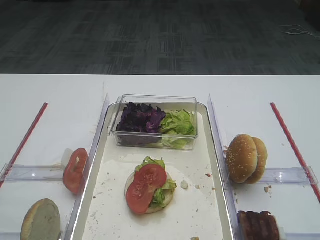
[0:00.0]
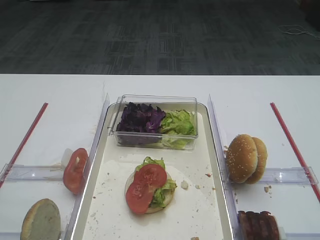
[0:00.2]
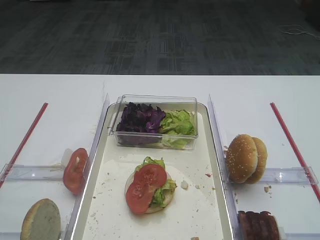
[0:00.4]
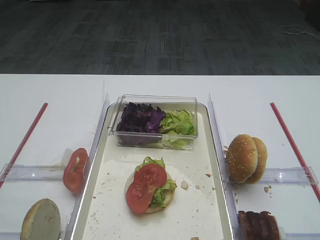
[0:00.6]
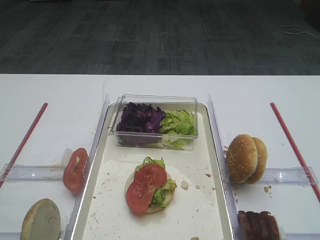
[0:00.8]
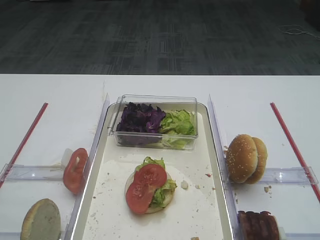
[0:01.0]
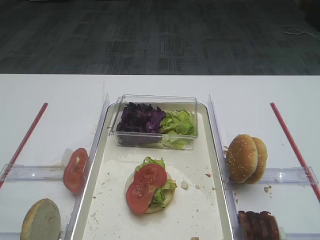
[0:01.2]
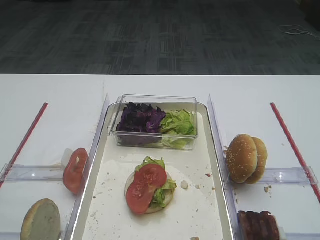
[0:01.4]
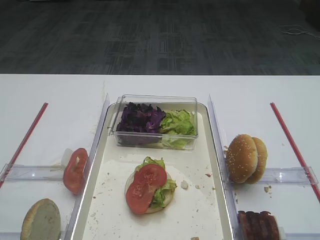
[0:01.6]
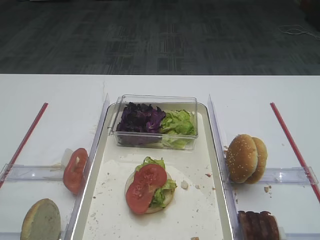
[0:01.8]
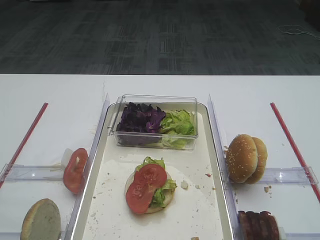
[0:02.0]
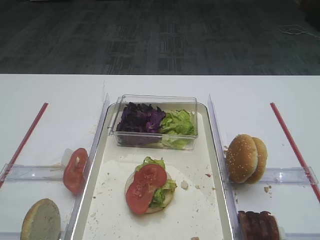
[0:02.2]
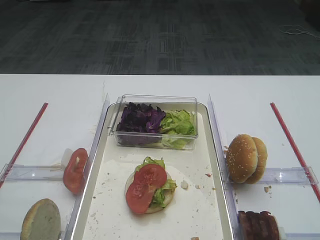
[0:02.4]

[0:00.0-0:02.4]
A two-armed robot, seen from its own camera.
0:00.0 to 0:02.4: Neither gripper changes place.

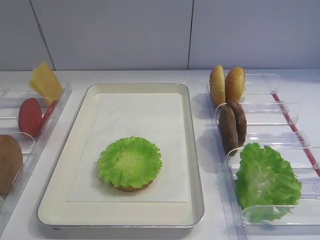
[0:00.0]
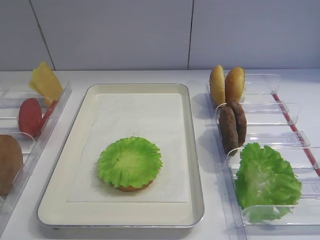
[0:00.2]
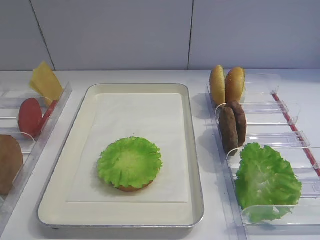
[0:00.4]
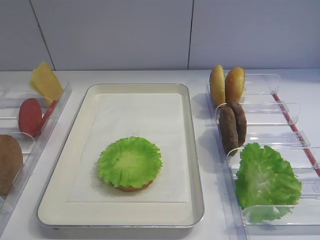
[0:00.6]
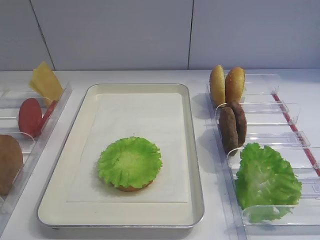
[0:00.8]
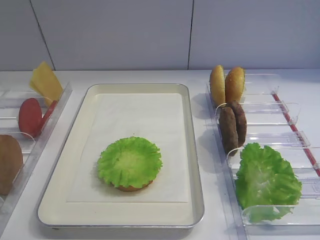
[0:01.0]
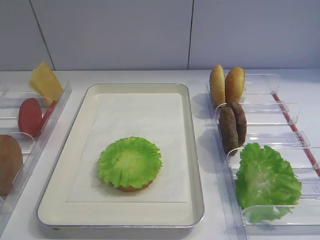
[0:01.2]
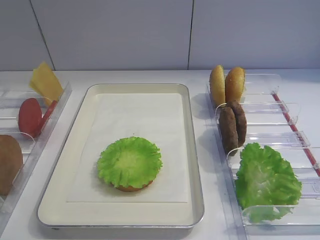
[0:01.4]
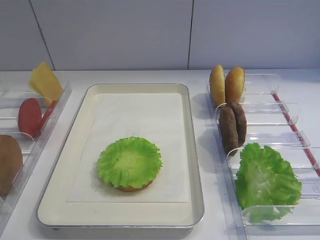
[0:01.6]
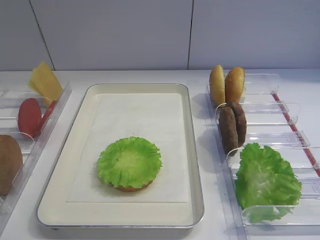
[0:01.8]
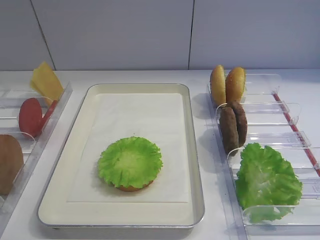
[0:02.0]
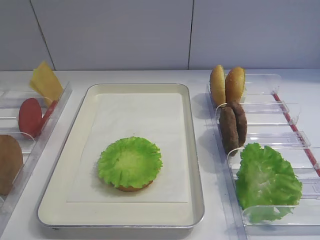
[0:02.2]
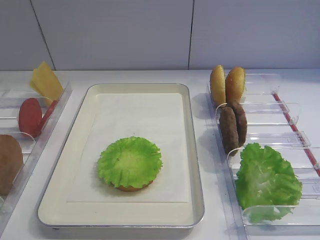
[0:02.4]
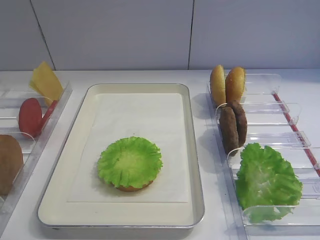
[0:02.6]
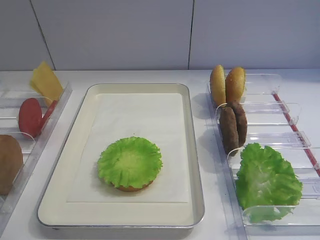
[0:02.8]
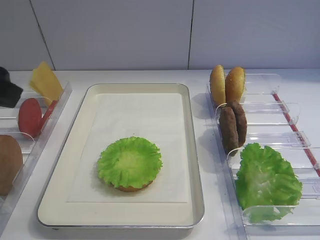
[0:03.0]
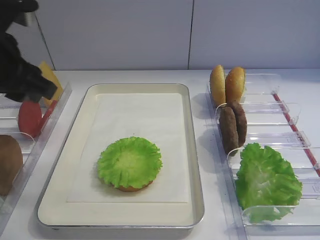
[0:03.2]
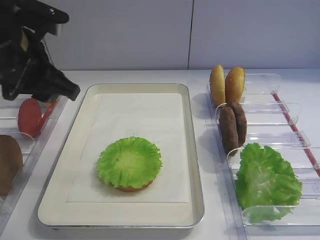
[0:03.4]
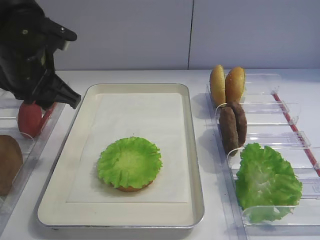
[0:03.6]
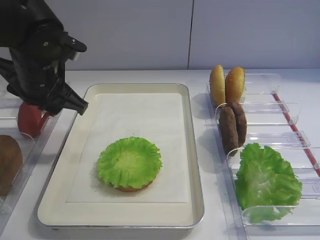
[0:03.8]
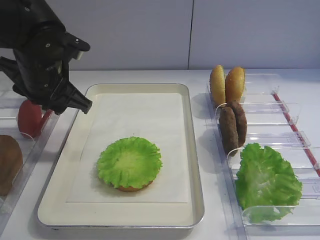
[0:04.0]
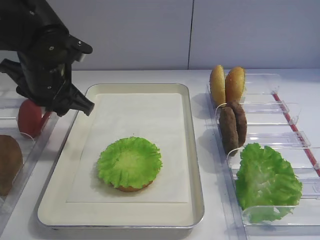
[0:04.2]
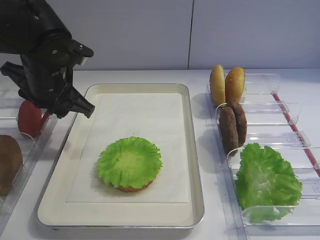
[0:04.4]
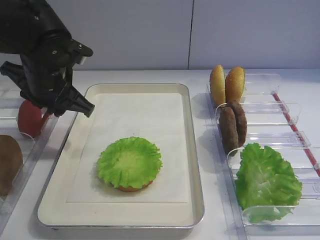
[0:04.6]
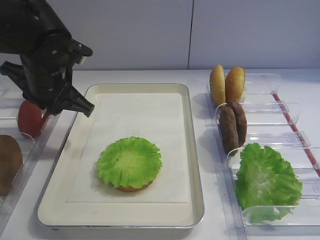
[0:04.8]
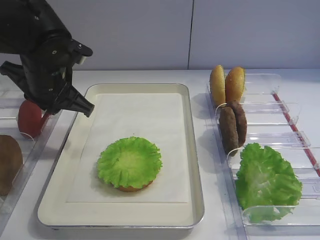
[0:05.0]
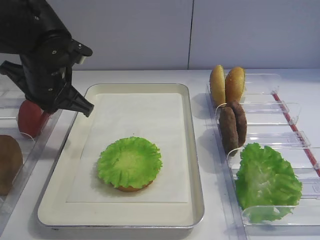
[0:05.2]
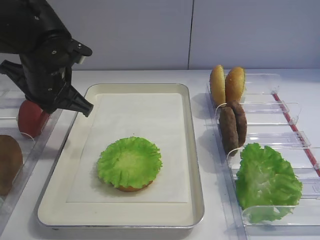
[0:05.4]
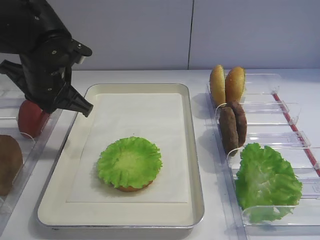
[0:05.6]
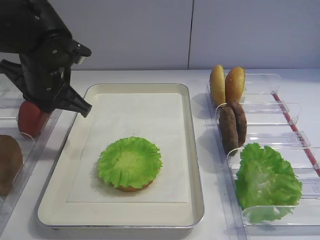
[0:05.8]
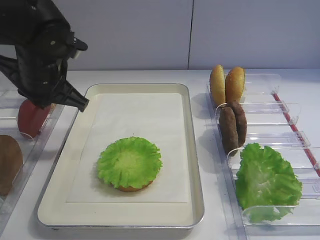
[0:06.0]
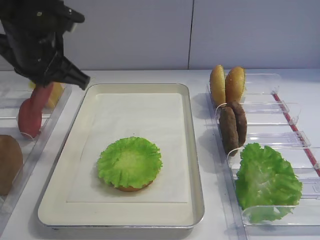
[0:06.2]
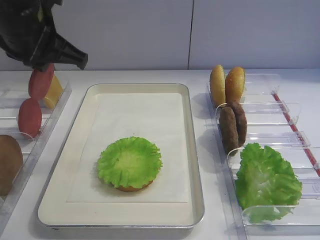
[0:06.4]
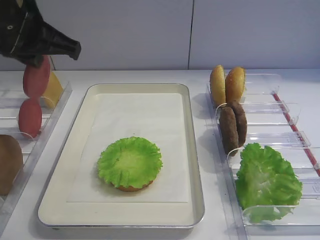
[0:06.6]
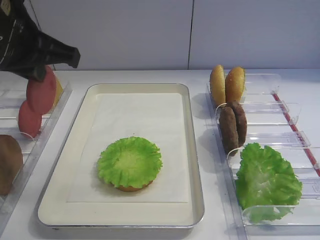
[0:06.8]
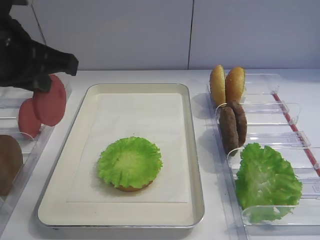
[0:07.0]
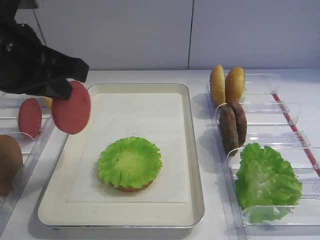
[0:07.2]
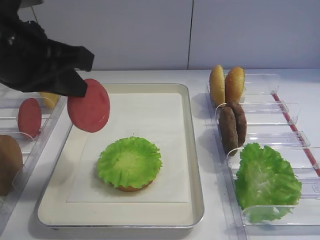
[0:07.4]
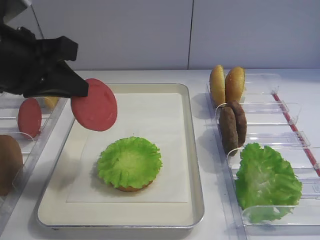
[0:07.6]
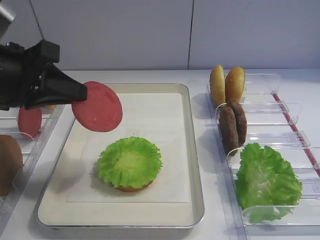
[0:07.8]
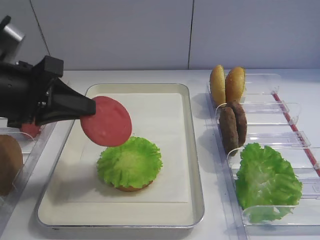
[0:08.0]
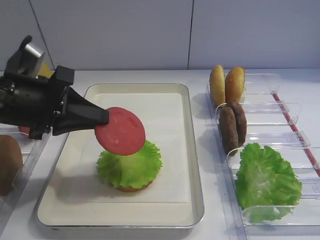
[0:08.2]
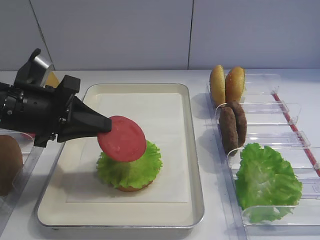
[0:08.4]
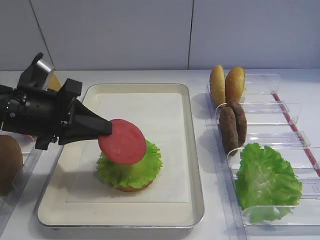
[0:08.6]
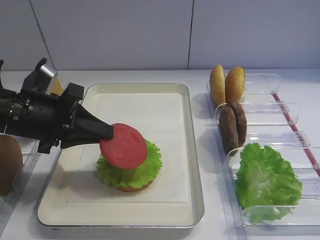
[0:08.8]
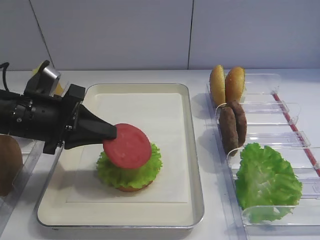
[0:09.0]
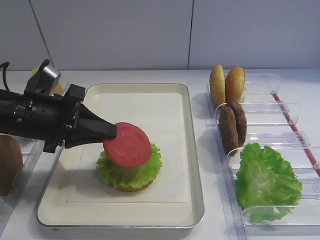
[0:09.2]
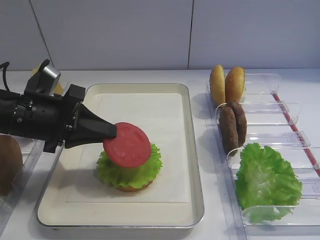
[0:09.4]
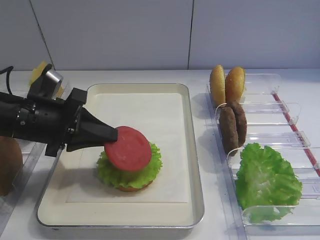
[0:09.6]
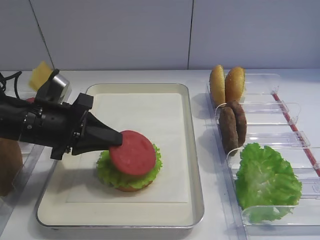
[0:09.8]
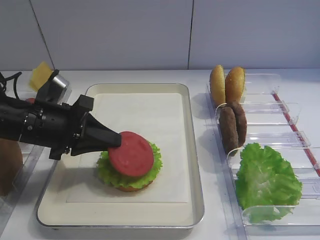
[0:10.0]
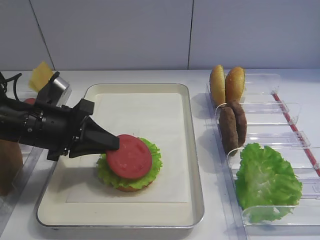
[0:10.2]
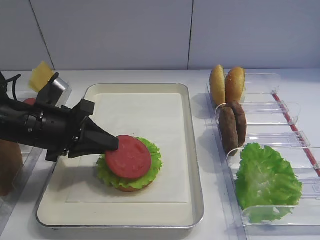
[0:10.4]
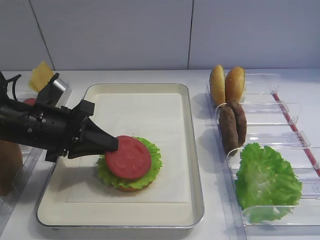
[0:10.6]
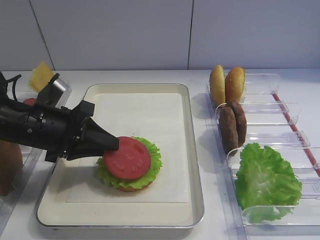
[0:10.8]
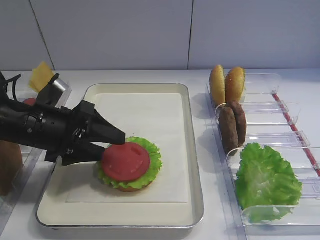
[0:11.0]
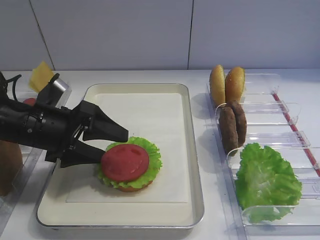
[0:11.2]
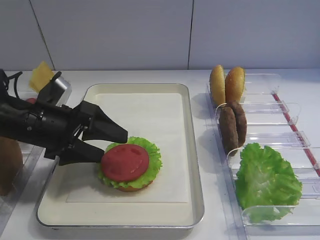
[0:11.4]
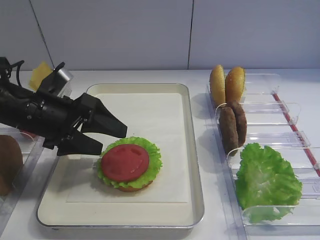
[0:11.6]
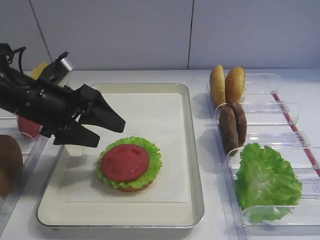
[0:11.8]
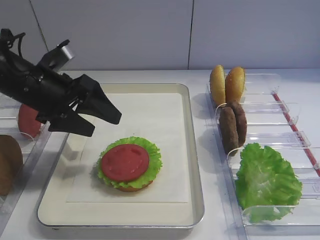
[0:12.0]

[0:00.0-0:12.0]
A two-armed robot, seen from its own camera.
Step, 0:00.0 to 0:06.6: Pick up the tomato slice with the left gripper.
Step, 0:07.0 to 0:11.6: Place the tomato slice on the lettuce leaf with the left gripper.
0:01.6 to 0:03.0: The left gripper shifts about 20 cm forward.
0:03.0 to 0:04.4: The left gripper goes about 15 cm forward, downward and to the right.
0:04.4 to 0:06.0: The left gripper closes its fingers.
0:06.0 to 0:07.6: The left gripper is displaced backward and upward by roughly 10 cm.
0:07.6 to 0:09.0: The left gripper goes some 10 cm downward.
0:09.0 to 0:10.4: The grippers move only a little.
0:10.4 to 0:12.0: The left gripper moves some 5 cm, and opens.

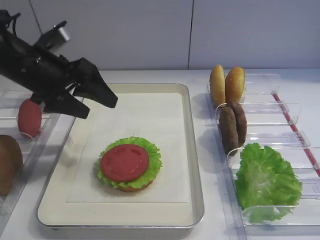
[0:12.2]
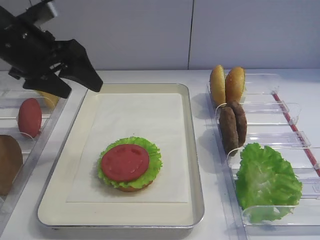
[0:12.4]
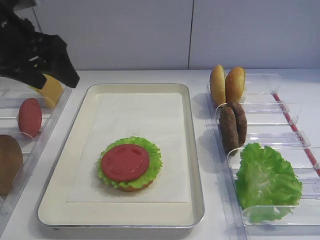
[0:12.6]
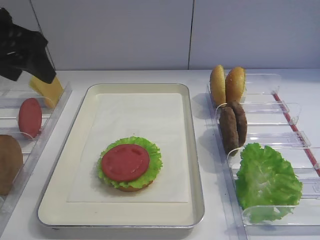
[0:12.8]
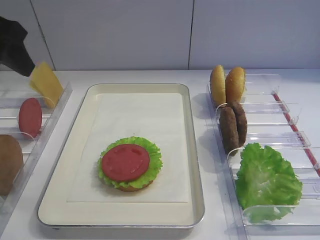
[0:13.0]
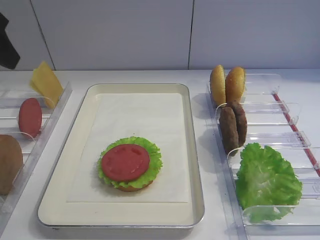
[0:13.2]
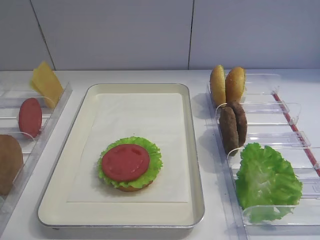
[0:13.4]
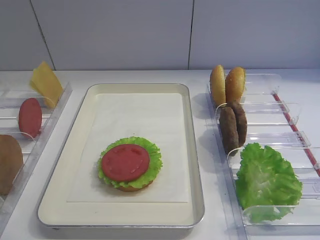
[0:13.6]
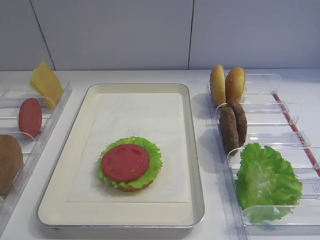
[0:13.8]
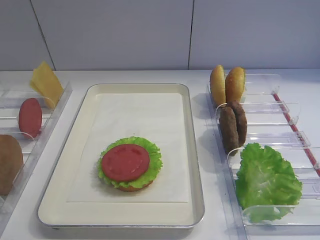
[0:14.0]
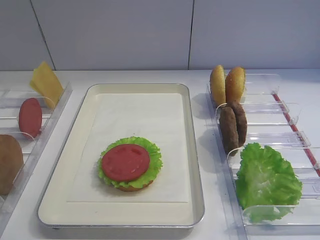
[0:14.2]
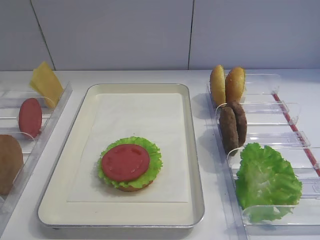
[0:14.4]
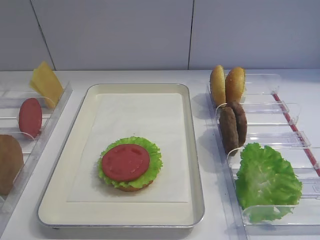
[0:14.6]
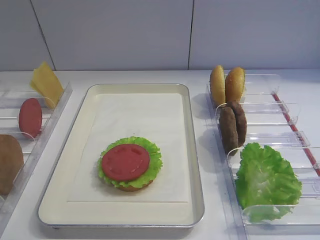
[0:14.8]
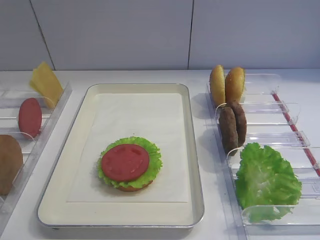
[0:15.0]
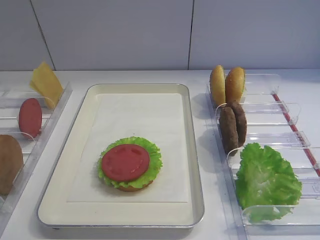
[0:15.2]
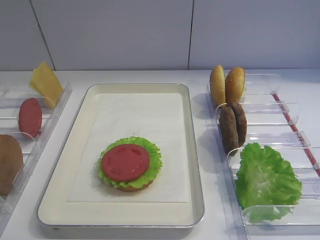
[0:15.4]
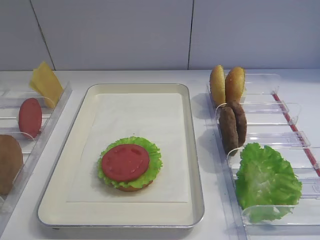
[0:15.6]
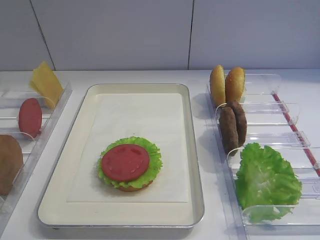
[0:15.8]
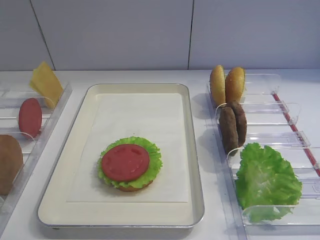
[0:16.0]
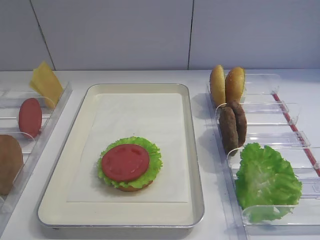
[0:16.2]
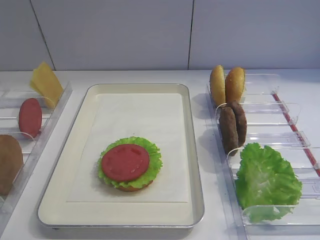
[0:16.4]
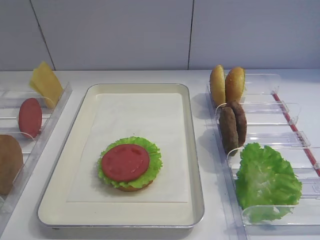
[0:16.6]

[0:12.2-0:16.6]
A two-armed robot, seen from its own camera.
0:12.2 to 0:13.6: The left gripper shifts some 20 cm backward, upward and to the left.
0:15.2 to 0:16.6: Both grippers stay about where they are.

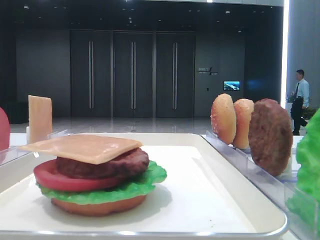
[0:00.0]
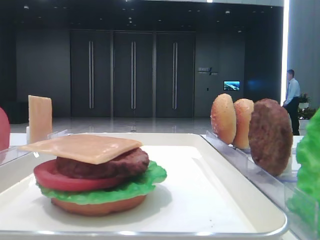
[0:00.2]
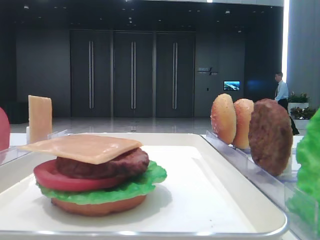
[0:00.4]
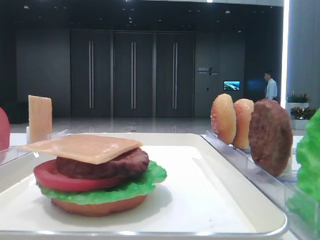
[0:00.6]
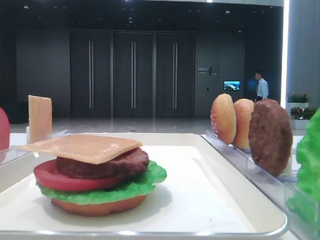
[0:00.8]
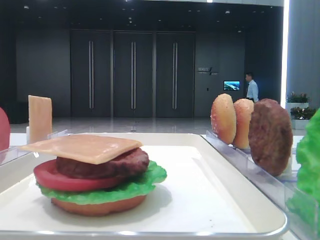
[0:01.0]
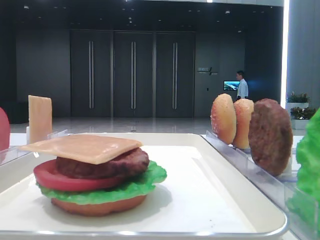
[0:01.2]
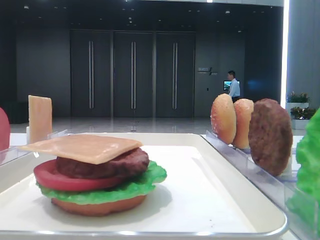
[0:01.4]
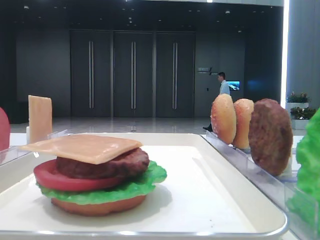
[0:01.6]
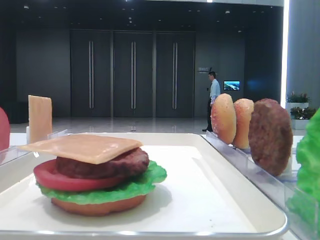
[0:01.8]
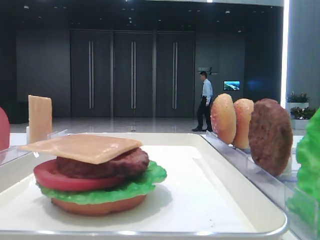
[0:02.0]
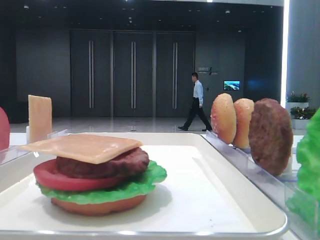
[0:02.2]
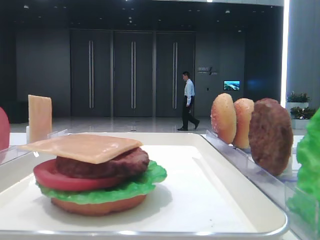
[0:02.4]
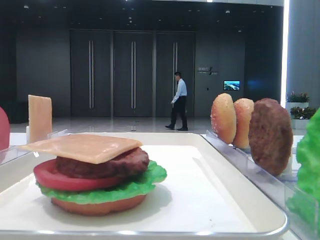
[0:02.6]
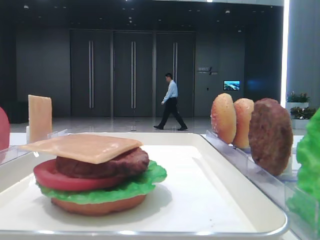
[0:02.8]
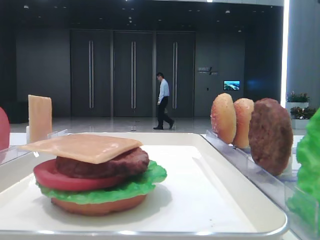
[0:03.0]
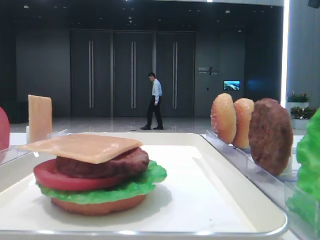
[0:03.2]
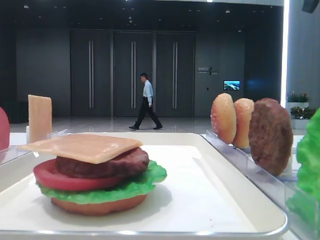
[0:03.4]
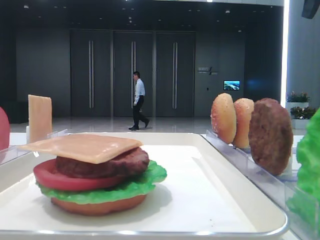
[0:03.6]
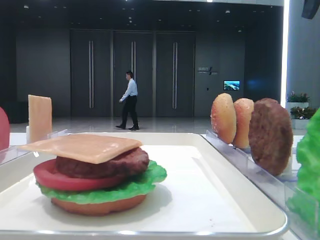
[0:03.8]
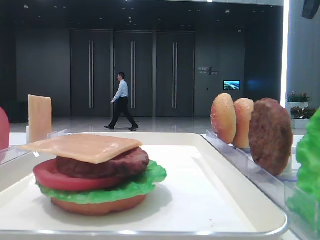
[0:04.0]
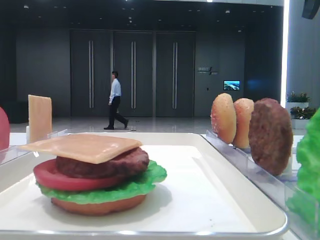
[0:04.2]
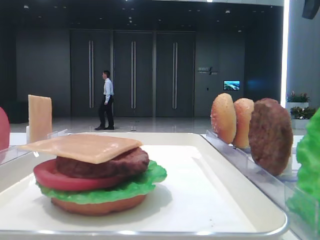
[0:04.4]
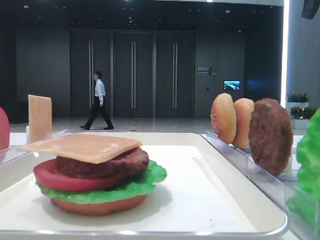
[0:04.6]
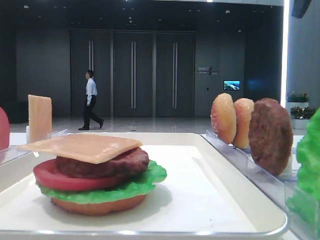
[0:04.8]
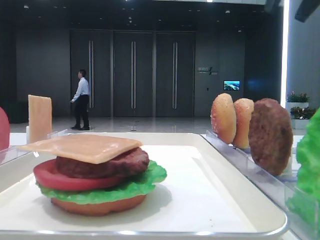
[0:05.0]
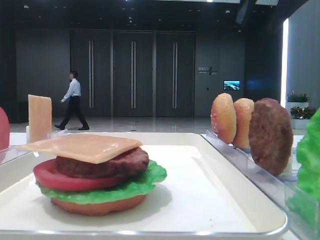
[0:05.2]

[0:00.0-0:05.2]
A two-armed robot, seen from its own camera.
0:01.8 to 0:03.4: The right gripper heads forward, covering about 25 cm.
0:03.4 to 0:05.2: The right gripper goes approximately 10 cm to the left.
